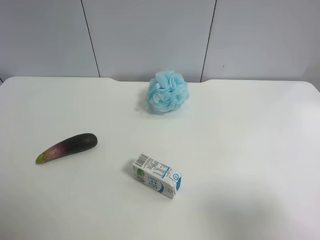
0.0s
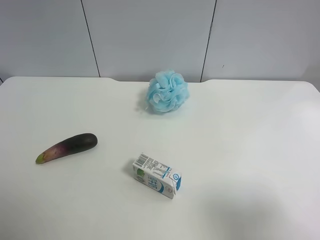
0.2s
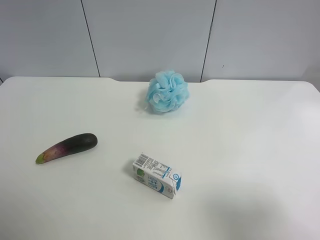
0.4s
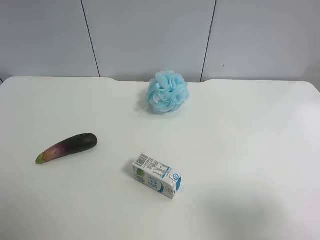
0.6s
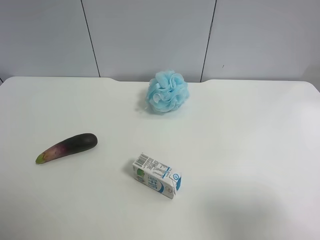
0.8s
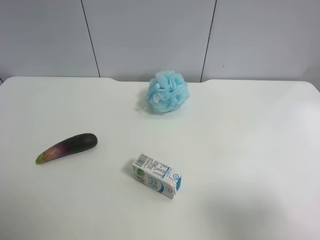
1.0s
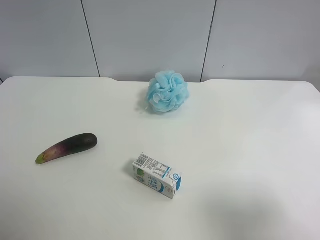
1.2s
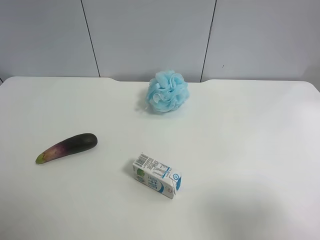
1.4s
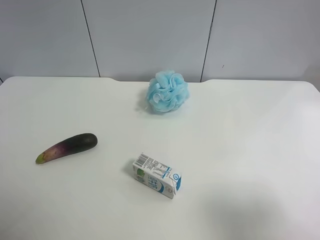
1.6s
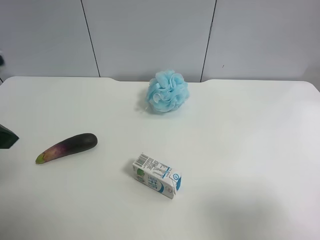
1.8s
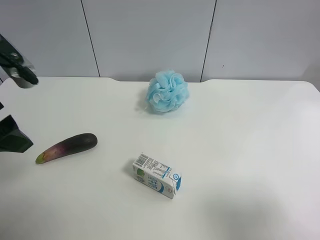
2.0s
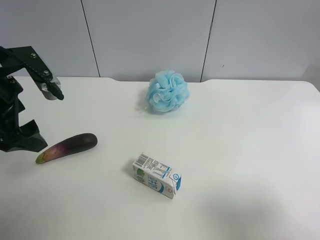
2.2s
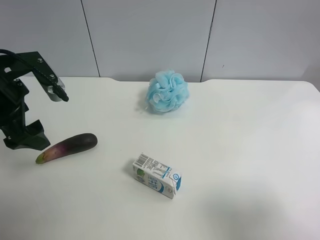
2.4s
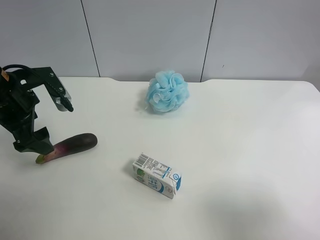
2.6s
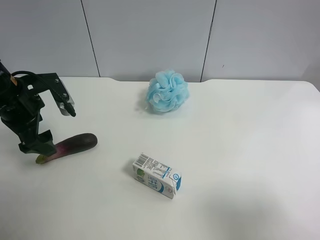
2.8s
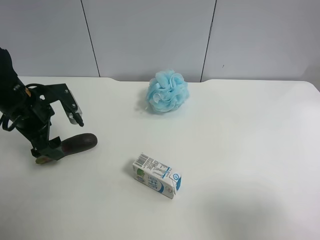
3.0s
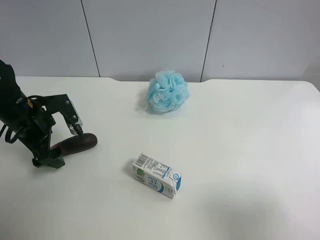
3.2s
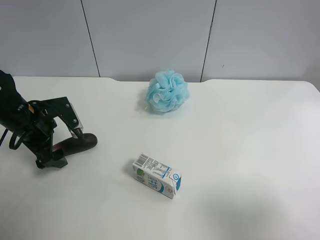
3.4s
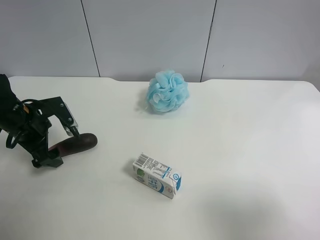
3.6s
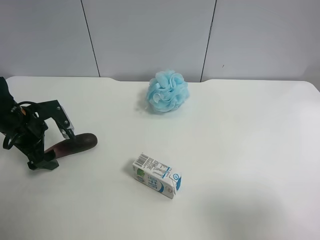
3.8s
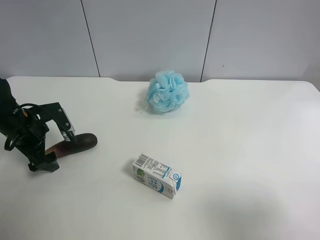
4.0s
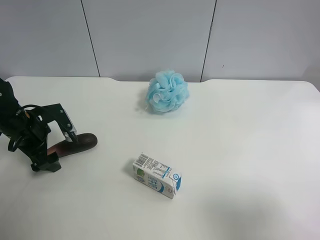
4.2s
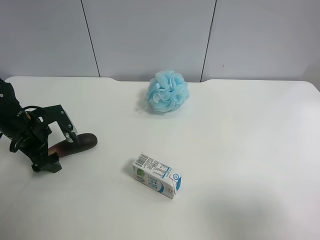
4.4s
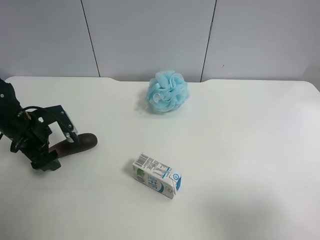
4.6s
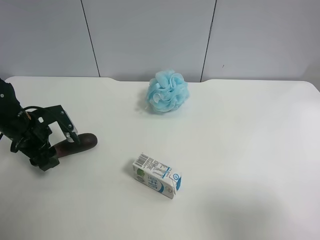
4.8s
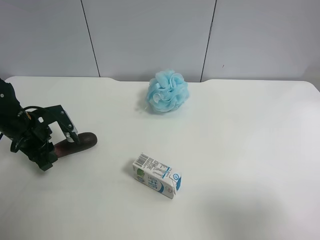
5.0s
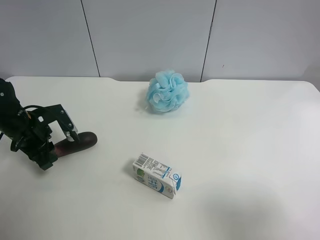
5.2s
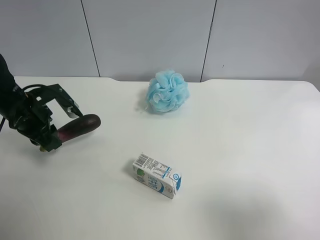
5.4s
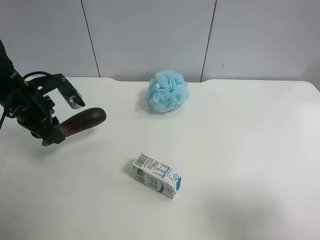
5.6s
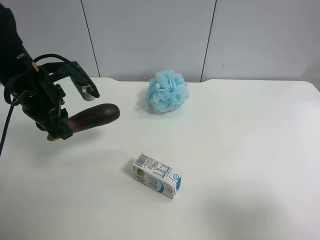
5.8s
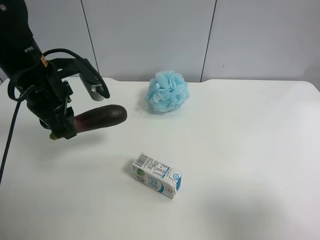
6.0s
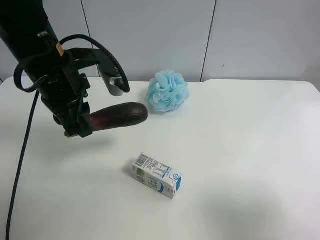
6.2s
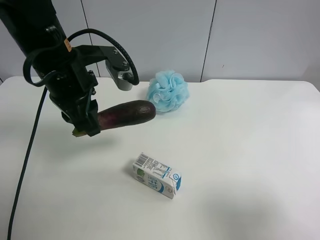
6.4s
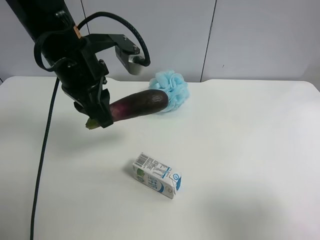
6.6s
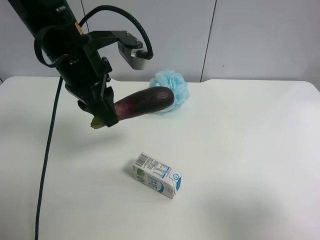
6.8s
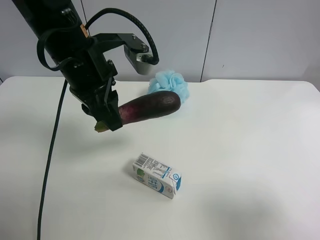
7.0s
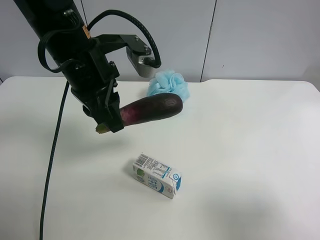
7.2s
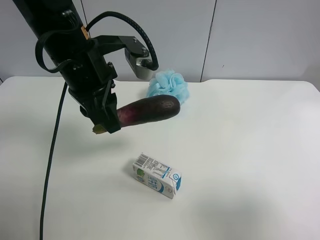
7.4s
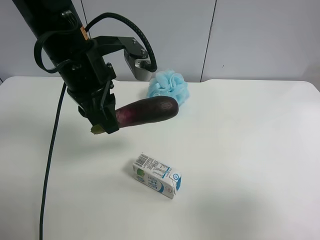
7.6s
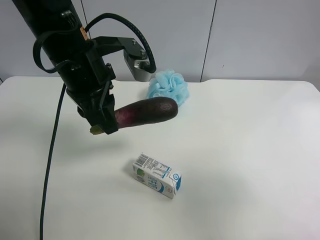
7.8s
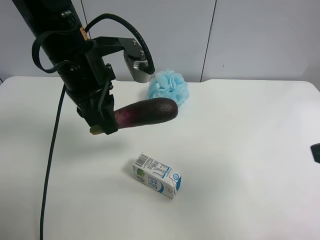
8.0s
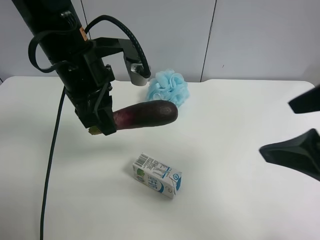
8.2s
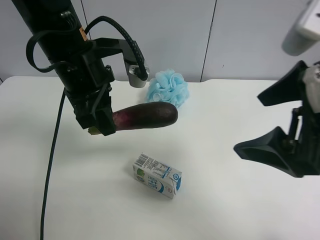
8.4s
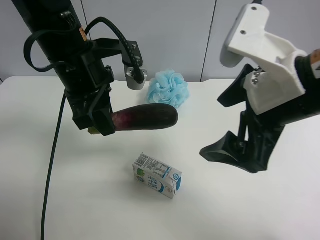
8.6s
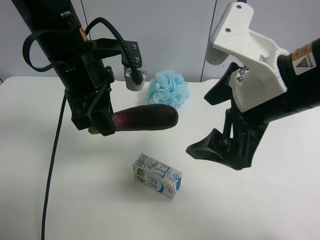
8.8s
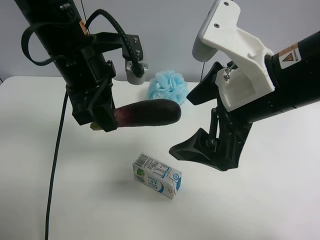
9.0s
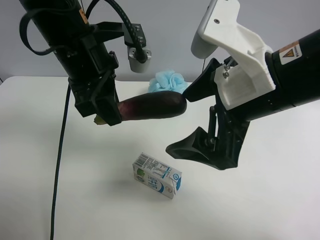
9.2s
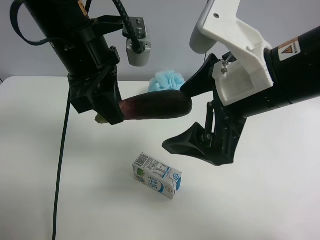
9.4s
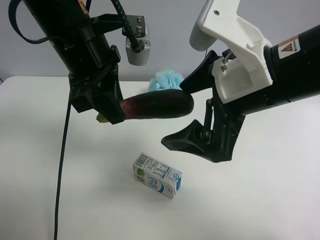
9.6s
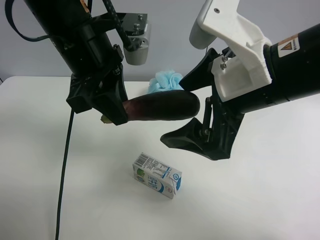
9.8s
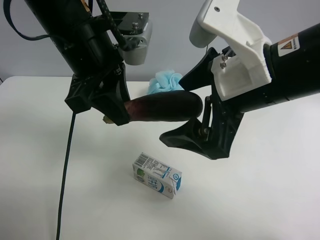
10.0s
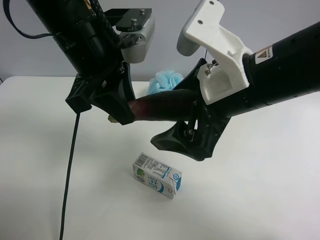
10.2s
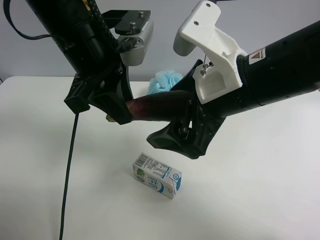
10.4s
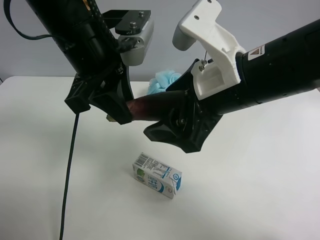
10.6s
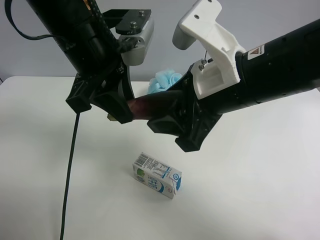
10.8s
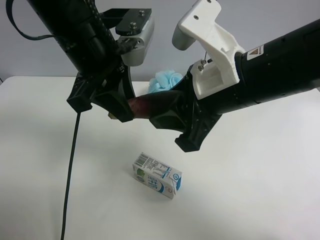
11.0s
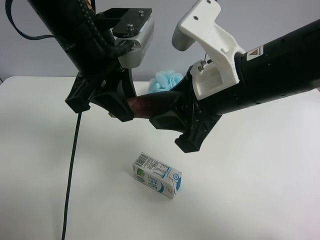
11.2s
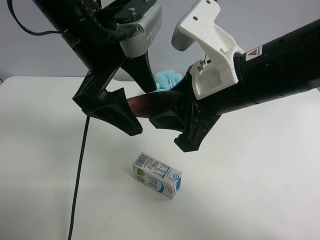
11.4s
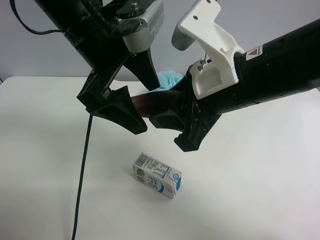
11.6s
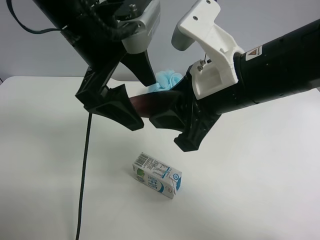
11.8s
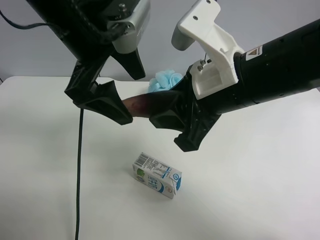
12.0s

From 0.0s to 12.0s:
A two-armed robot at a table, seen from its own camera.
Task of the whole recording: use the left gripper to pick up the item and transfer it from the left gripper to the right gripper.
From 1.6s to 3.0s: The left gripper goes approximately 25 cm forward and downward.
From 3.0s to 4.4s: The left gripper moves downward, about 5 cm.
From 4.4s to 6.0s: The left gripper heads upward and to the right, covering approximately 15 cm, and closes its fingers.
From 6.0s to 7.6s: The left gripper shifts roughly 10 cm to the right.
From 7.6s to 9.0s: The right gripper shifts roughly 20 cm to the left and forward.
From 10.4s to 12.0s: The right gripper closes. The left gripper opens.

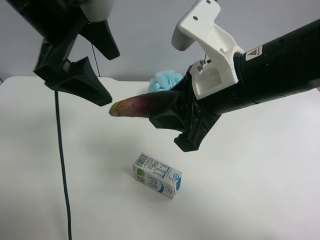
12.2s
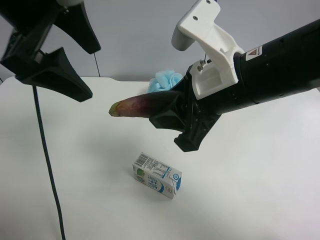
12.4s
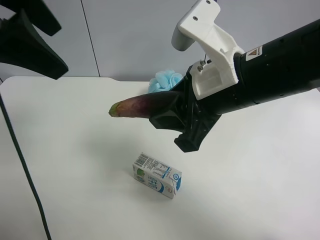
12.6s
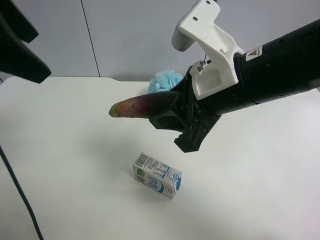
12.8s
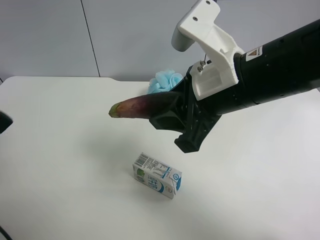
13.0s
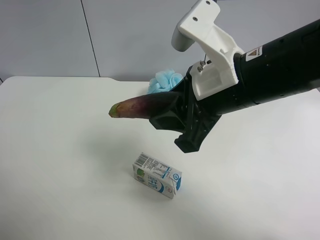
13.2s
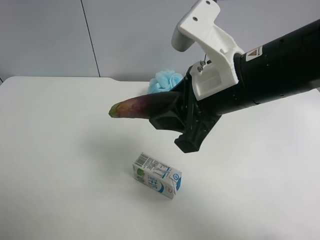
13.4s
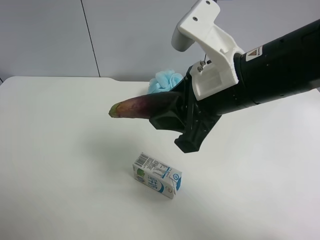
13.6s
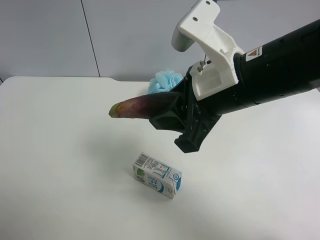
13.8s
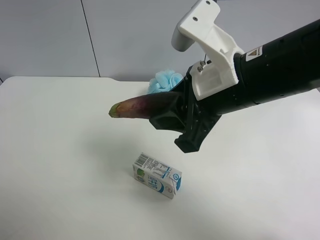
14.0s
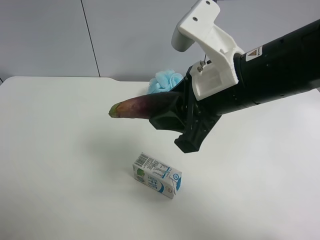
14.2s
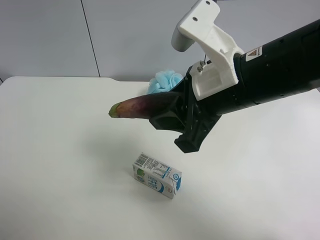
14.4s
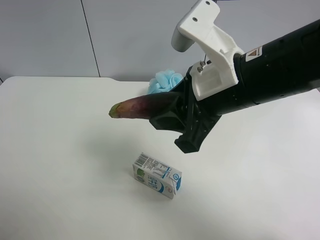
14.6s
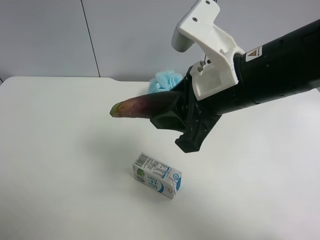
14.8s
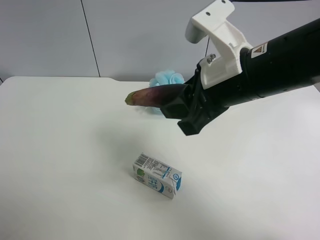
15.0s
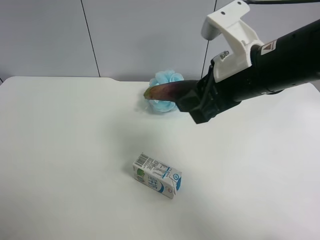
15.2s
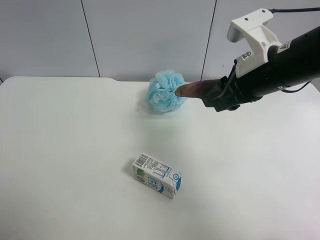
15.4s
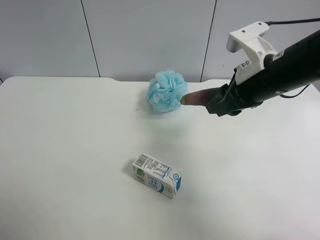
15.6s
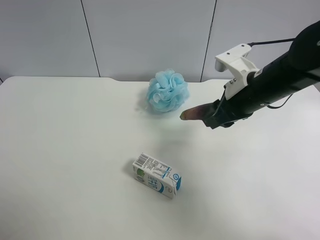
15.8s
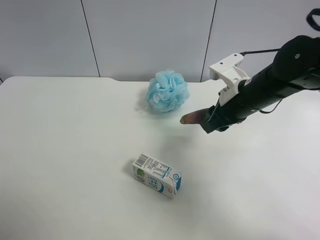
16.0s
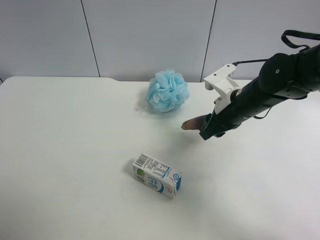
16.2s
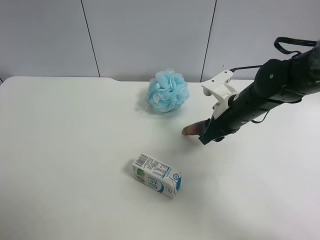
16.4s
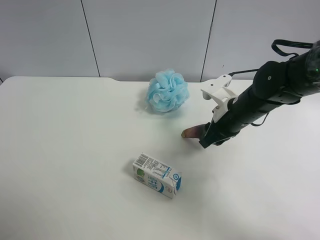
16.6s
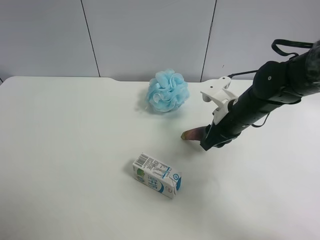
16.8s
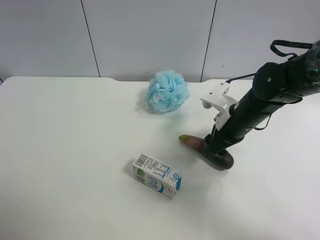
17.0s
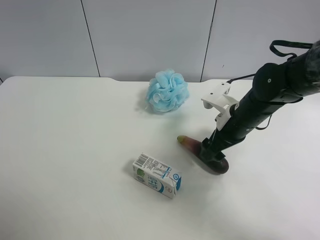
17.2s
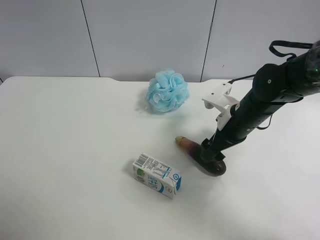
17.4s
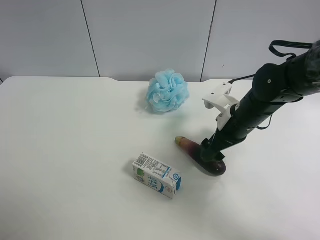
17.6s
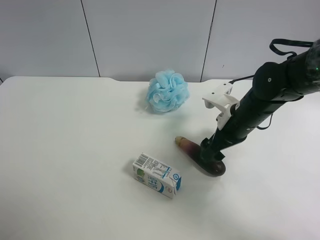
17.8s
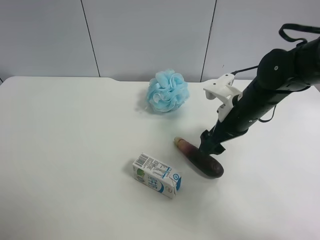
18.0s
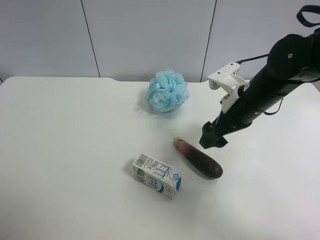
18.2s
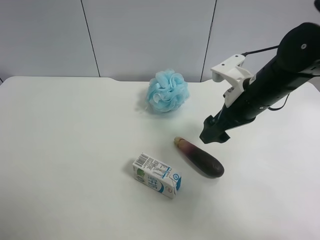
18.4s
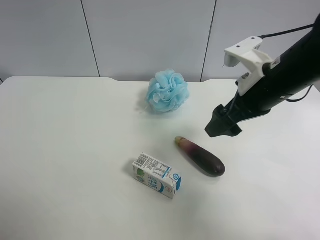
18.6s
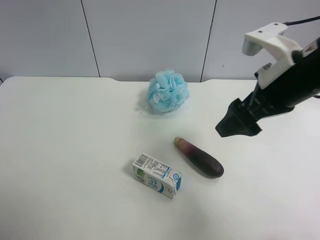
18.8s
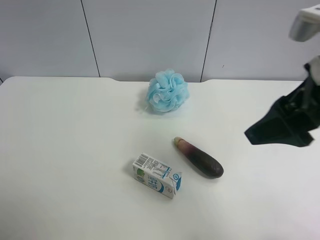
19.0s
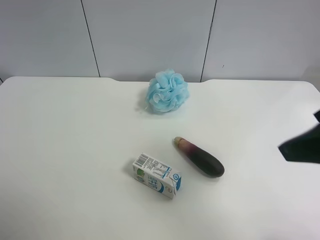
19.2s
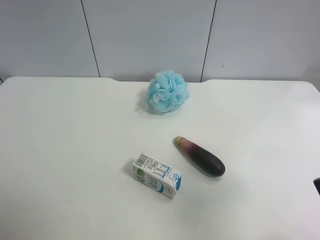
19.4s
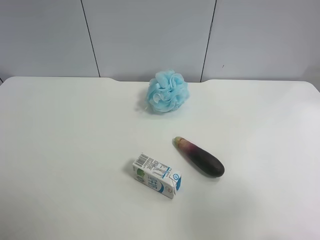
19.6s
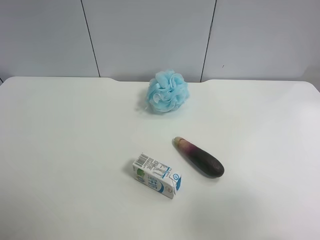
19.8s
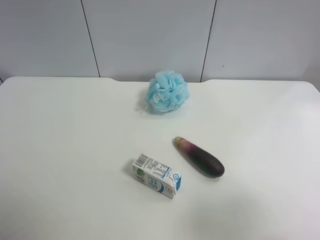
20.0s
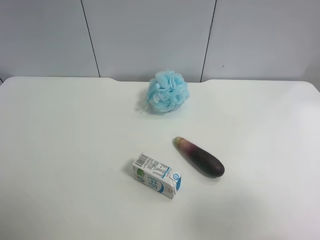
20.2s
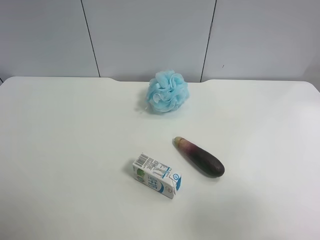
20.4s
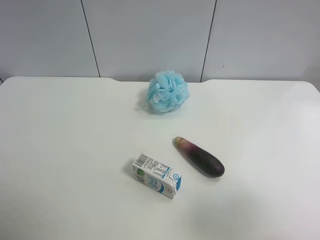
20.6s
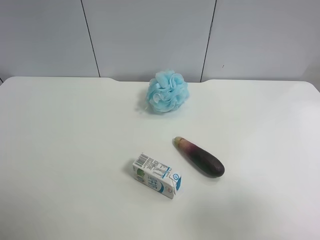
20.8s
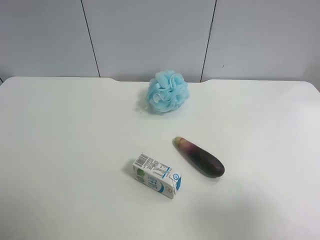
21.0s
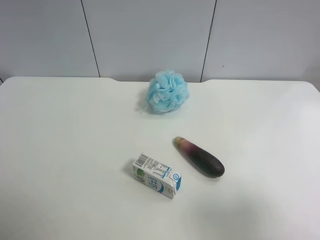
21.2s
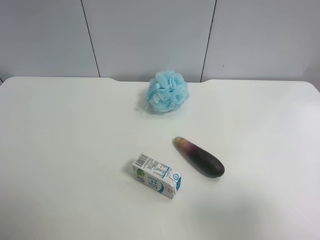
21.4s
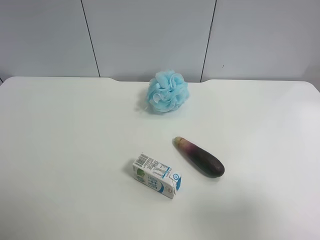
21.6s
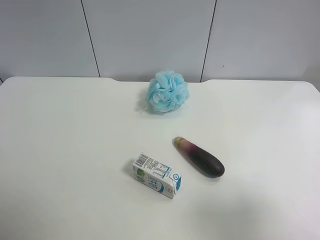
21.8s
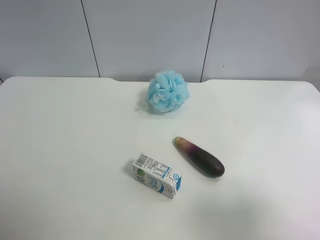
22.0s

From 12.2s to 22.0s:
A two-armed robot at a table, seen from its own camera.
Task of the whole recording: use the left gripper to pick up the item and transfer it from the left gripper to the right gripper.
From 12.2s to 13.6s: The left gripper goes approximately 25 cm backward and to the left.
From 13.6s to 15.0s: The left gripper moves about 5 cm.
From 15.0s to 16.4s: The right gripper travels downward, forward and to the right by about 20 cm.
From 16.4s to 17.8s: The right gripper opens.
From 17.8s to 19.2s: The right gripper moves upward and backward, roughly 25 cm.
From 19.2s to 20.6s: The right gripper heads backward and to the right, covering some 15 cm.
